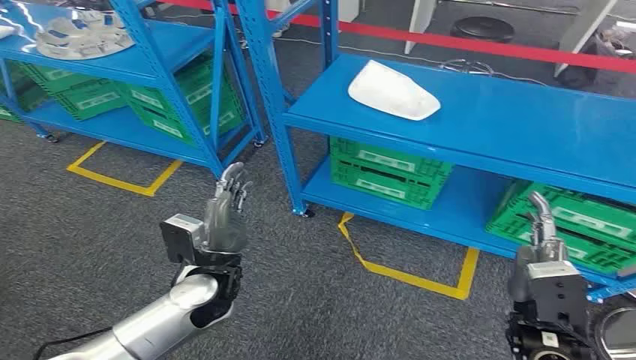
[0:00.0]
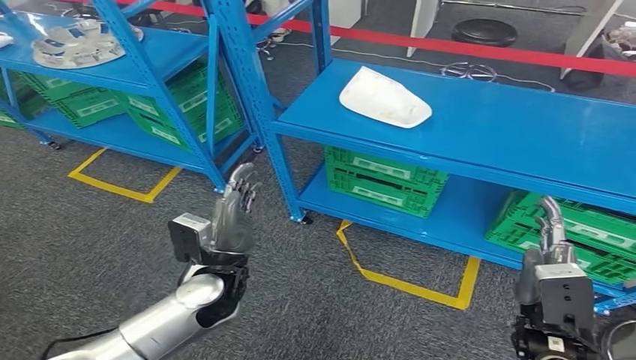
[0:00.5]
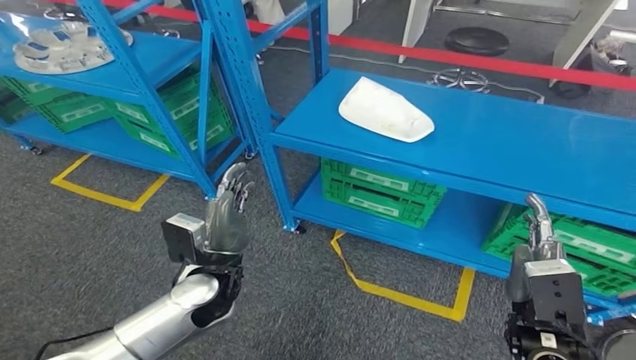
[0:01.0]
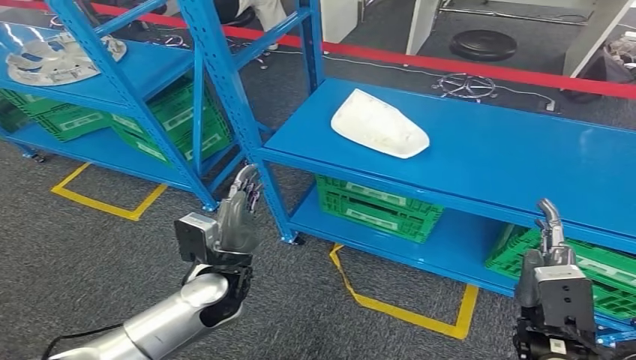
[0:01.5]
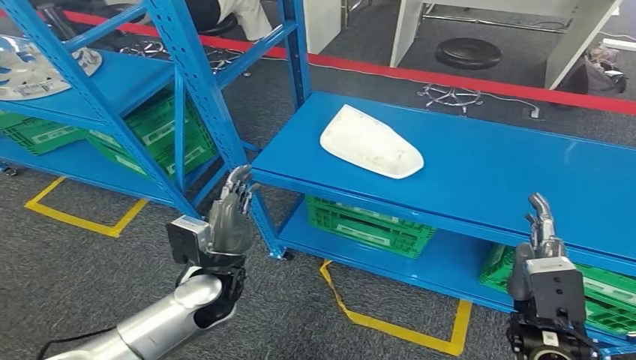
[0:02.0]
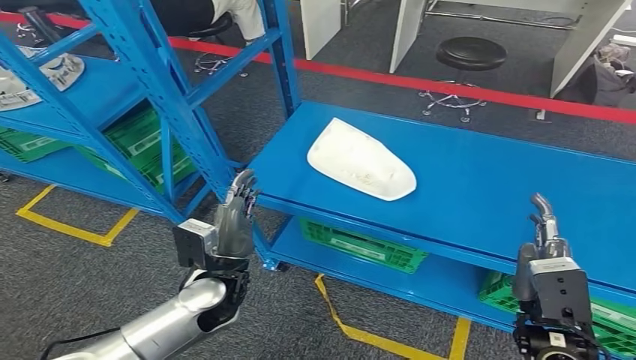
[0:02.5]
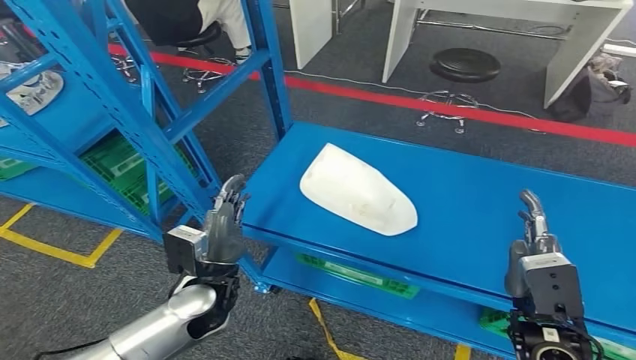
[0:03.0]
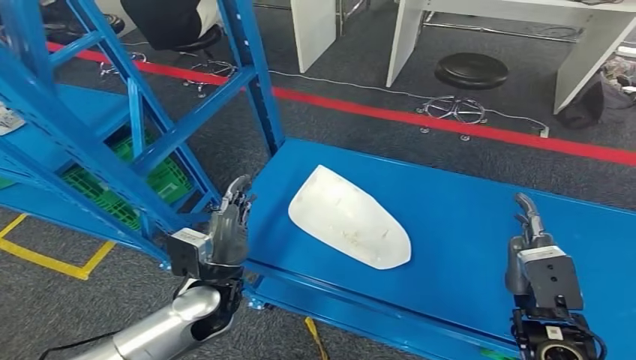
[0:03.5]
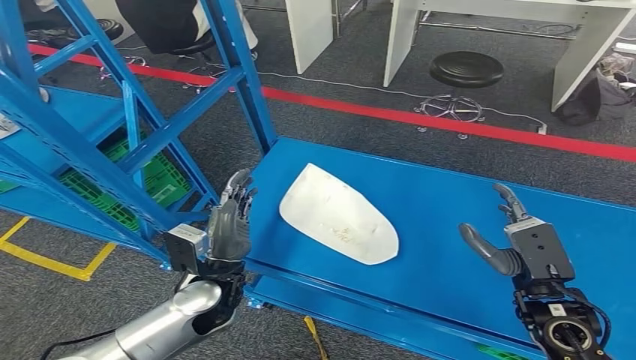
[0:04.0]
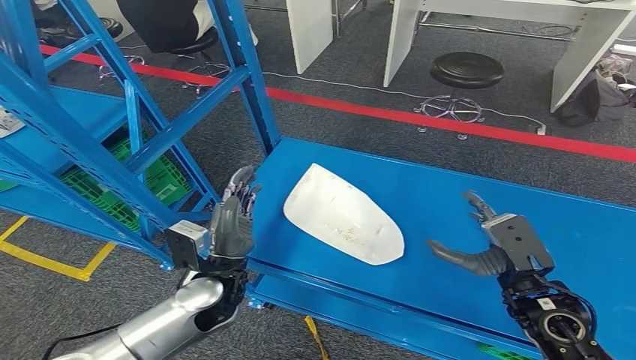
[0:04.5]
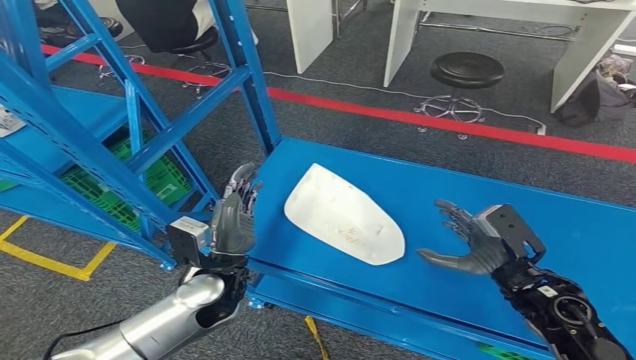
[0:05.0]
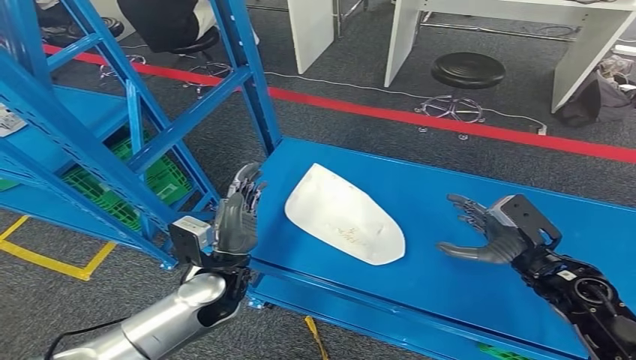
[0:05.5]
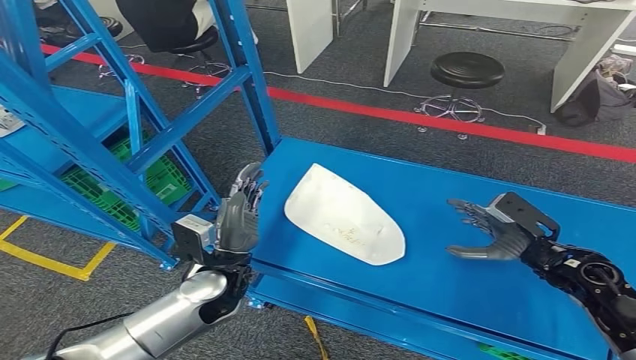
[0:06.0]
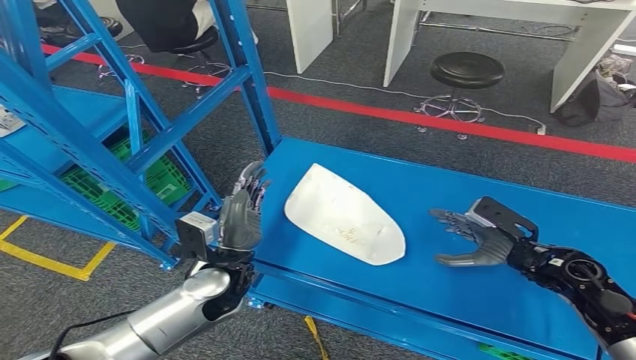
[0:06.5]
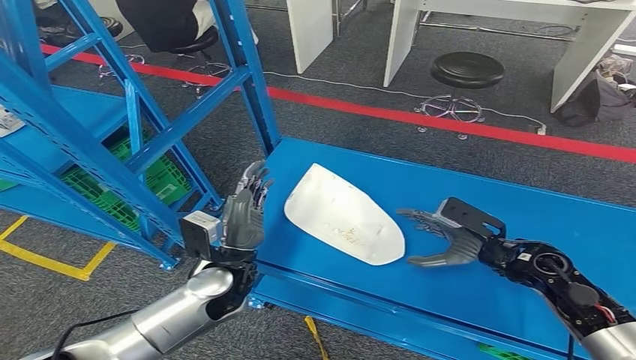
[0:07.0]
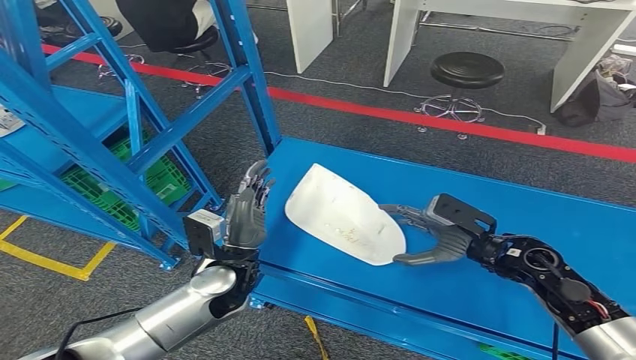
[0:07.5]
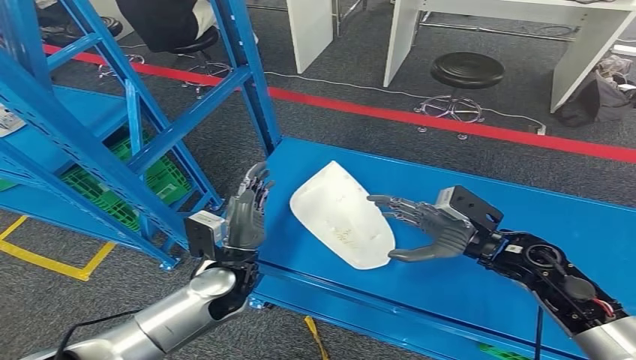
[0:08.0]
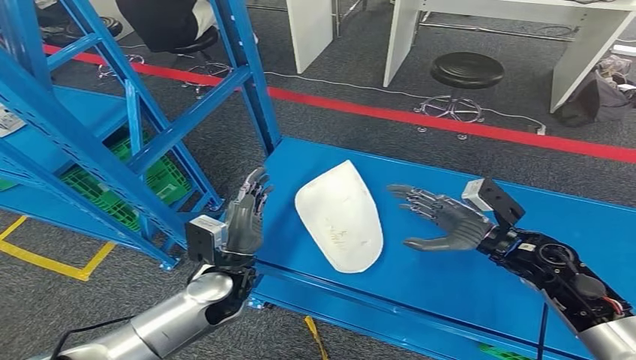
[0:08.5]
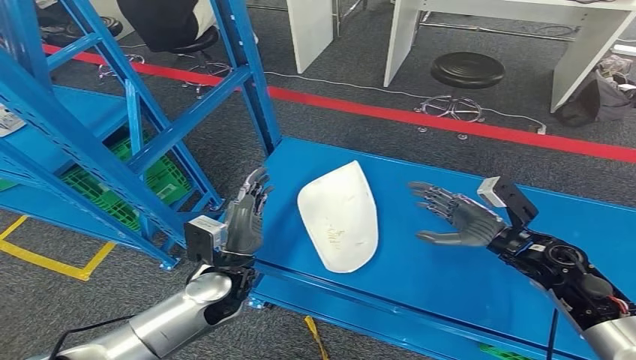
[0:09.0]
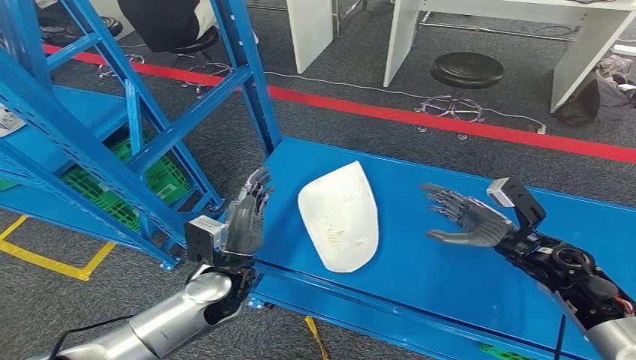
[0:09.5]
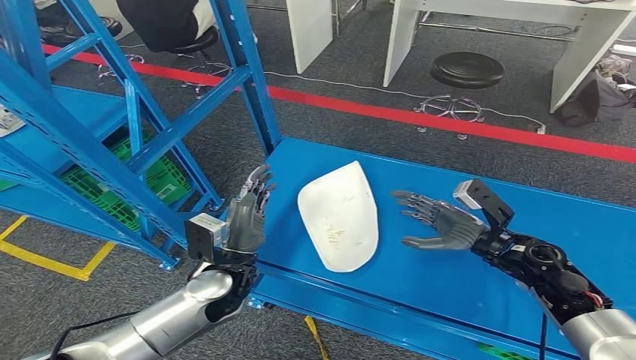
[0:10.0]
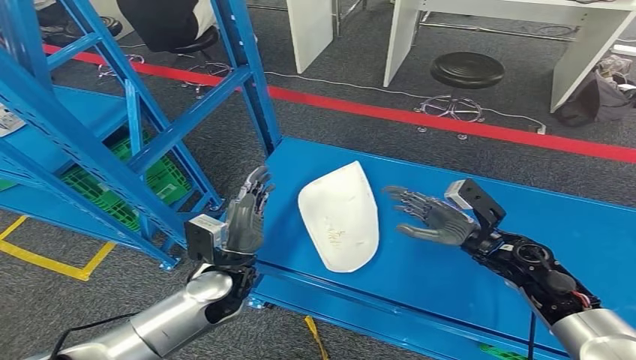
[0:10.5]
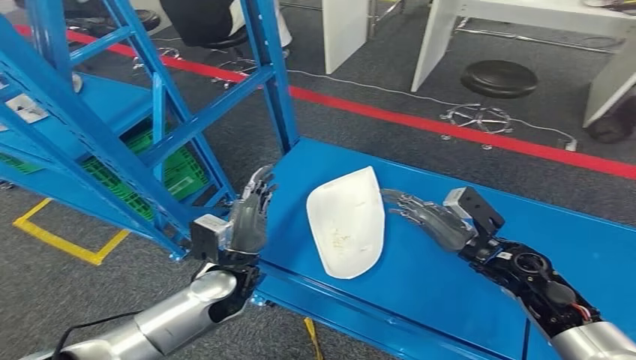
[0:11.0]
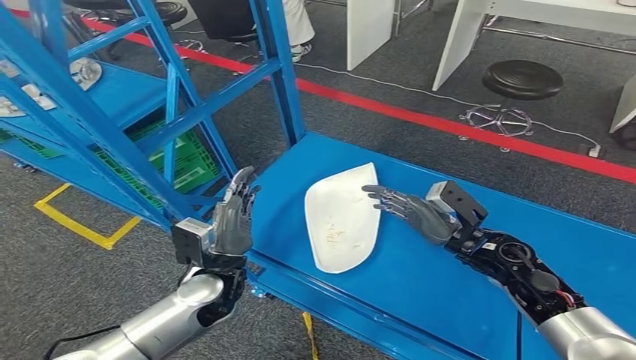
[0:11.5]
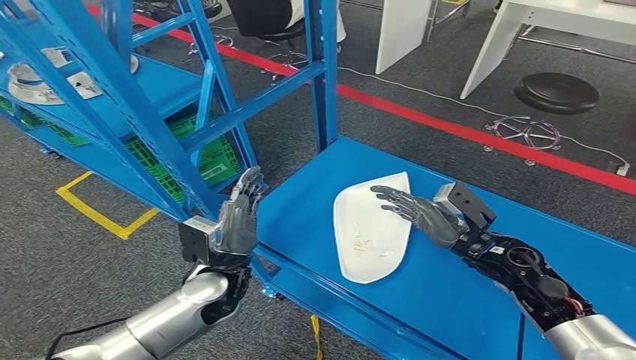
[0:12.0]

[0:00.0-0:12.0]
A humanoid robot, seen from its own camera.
0:04.0 to 0:06.0: The right hand goes roughly 10 cm forward and to the right.
0:06.0 to 0:08.0: The right hand heads to the left, covering roughly 10 cm.

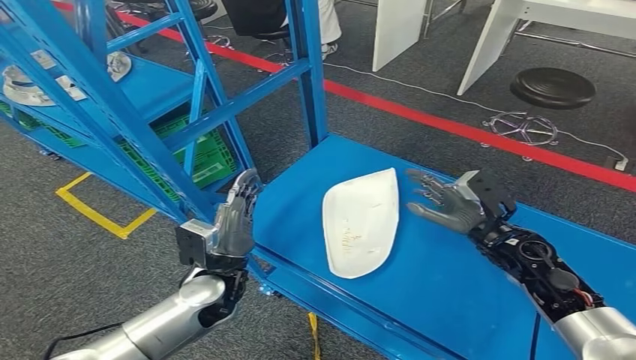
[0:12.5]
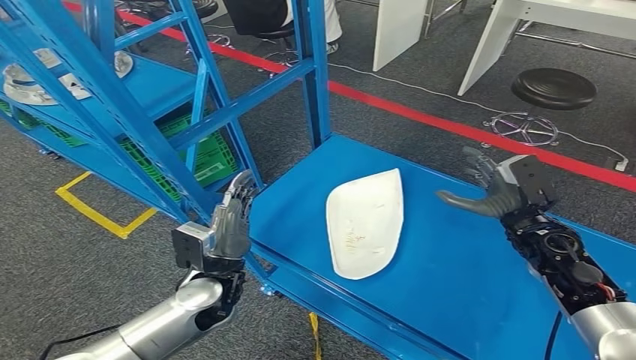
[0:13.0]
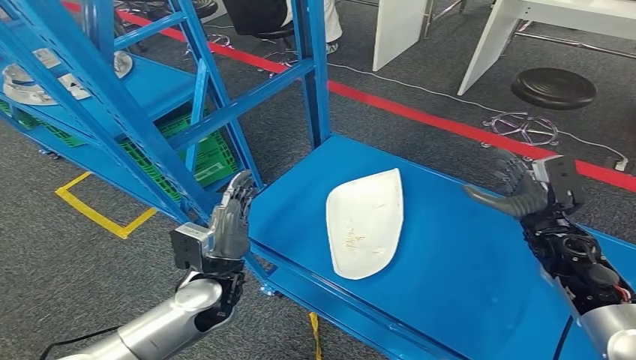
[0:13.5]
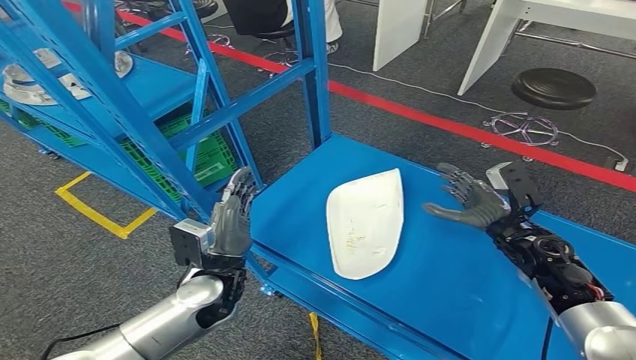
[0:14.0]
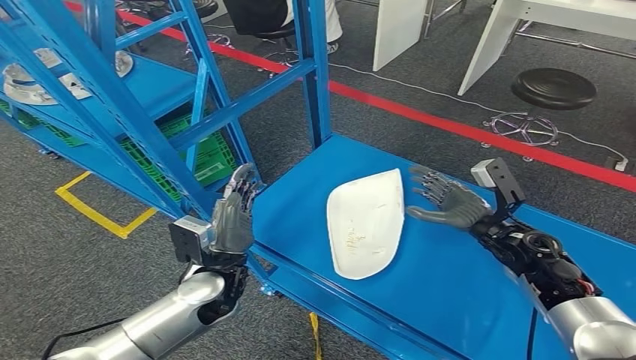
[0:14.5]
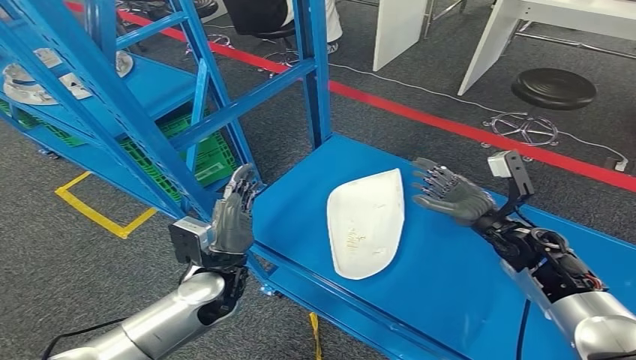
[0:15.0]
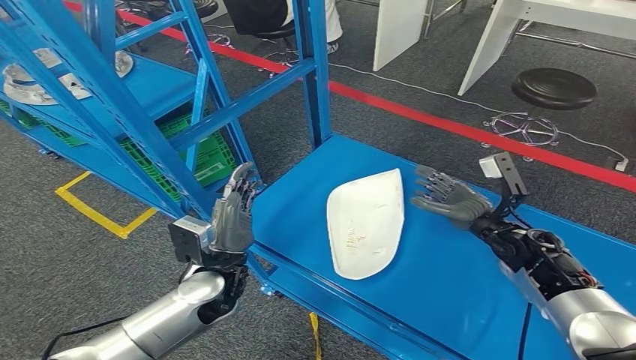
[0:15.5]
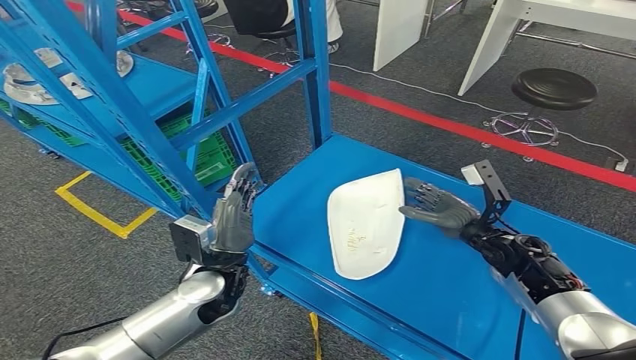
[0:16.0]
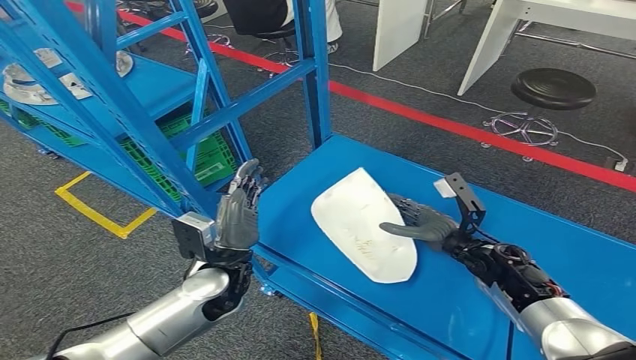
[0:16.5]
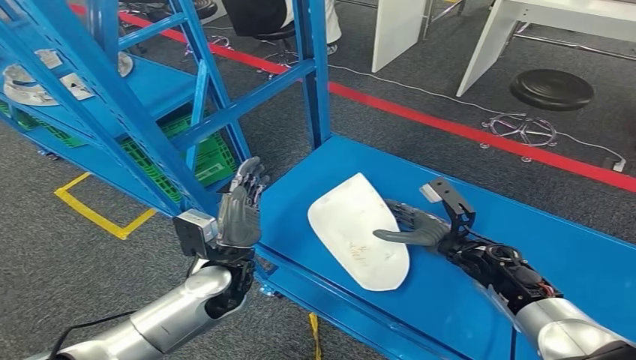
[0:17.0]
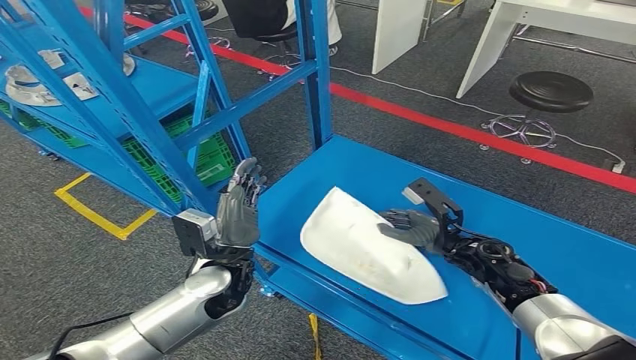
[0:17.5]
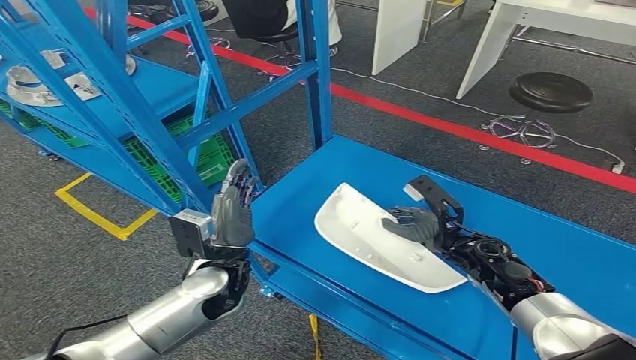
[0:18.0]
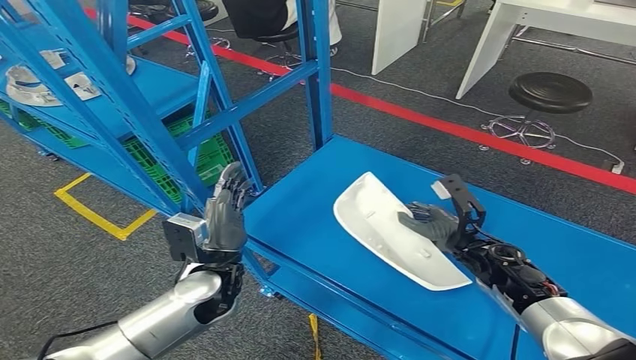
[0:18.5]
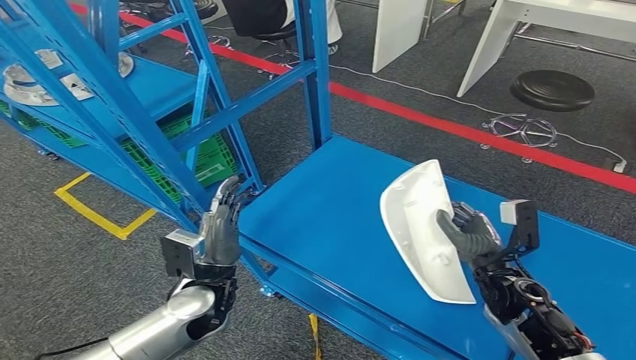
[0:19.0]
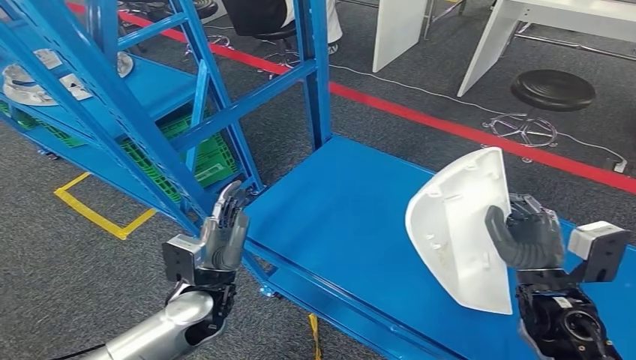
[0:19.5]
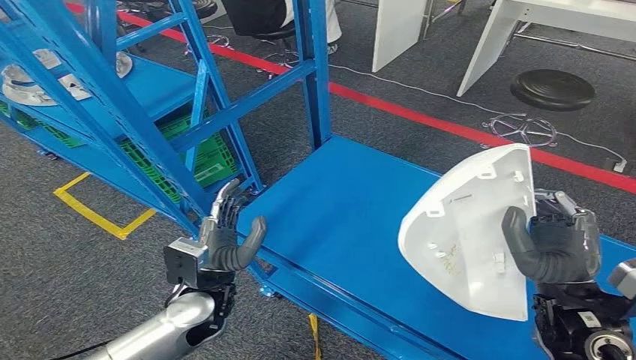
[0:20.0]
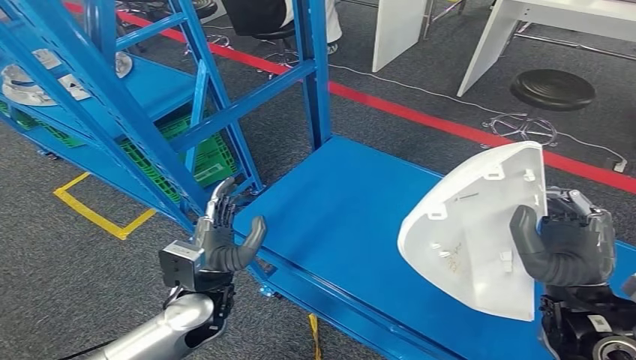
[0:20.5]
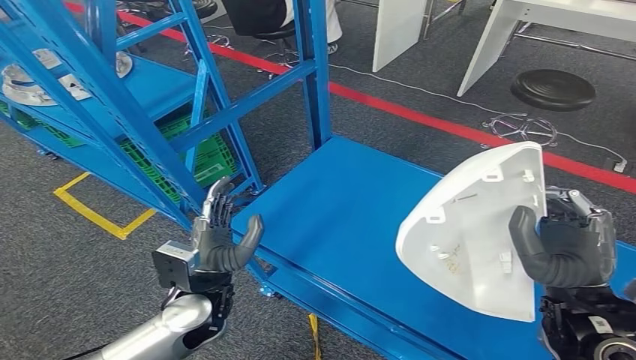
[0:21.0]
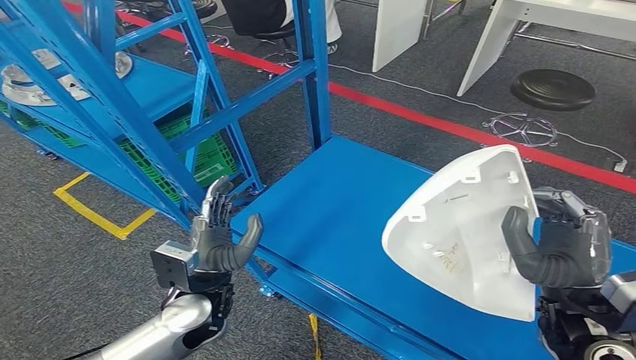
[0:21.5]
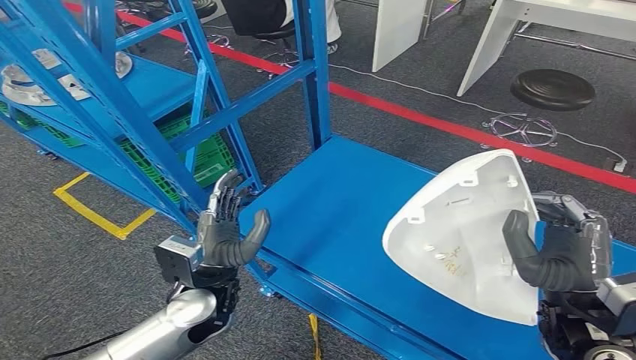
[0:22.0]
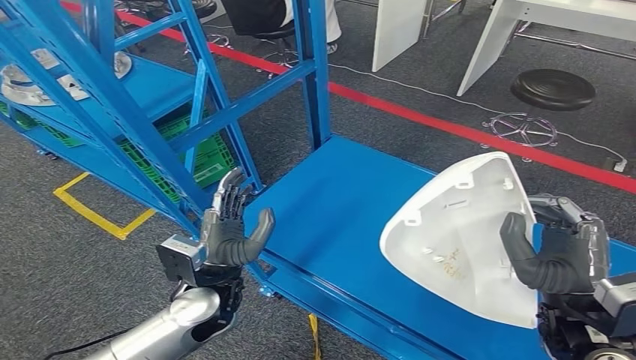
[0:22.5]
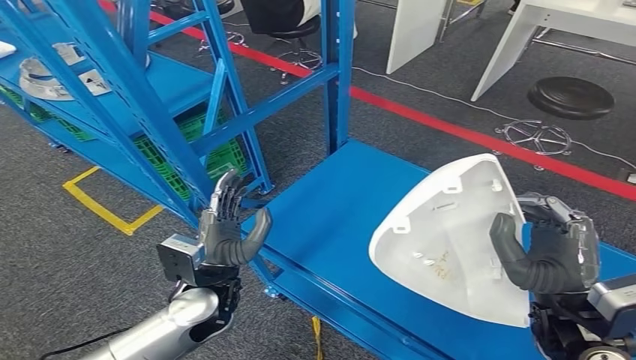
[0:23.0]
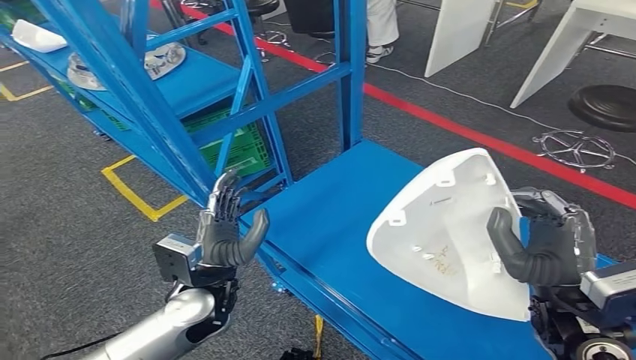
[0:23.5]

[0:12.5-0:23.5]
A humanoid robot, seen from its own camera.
Step, 0:12.5 to 0:19.5: Pick up the small parts from the shelf.
0:14.5 to 0:16.0: The hands make only small movements.
0:20.0 to 0:21.5: The hands make only small movements.
